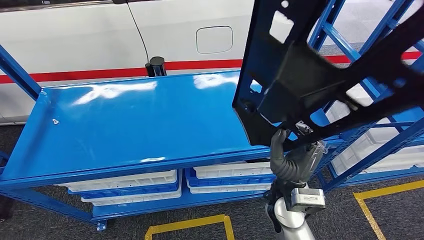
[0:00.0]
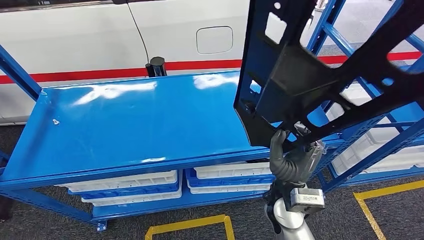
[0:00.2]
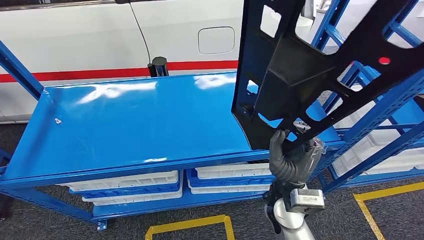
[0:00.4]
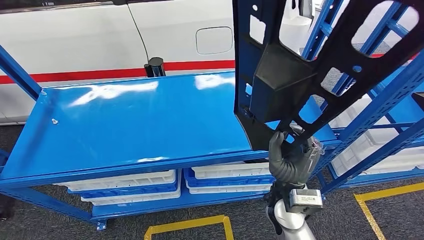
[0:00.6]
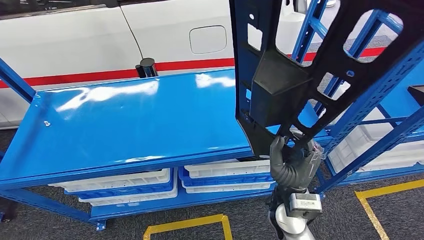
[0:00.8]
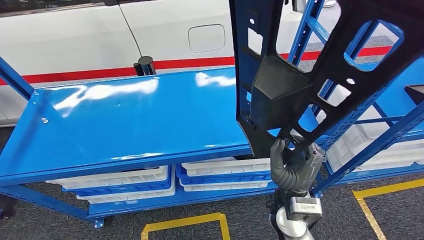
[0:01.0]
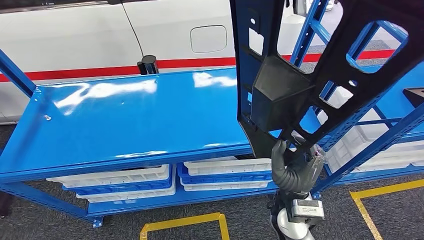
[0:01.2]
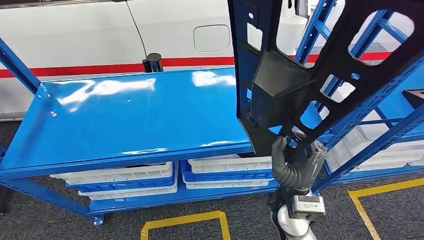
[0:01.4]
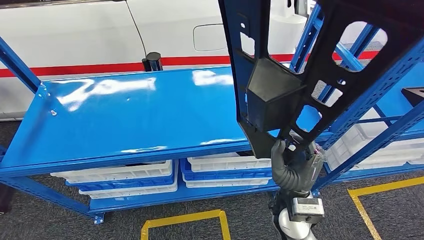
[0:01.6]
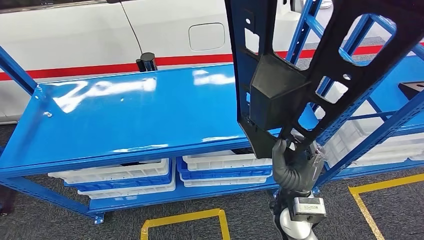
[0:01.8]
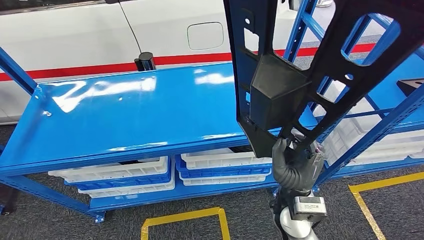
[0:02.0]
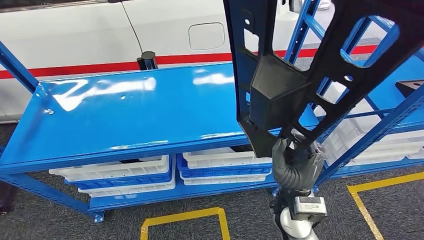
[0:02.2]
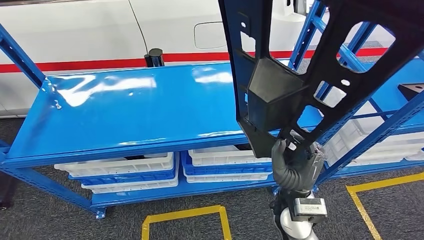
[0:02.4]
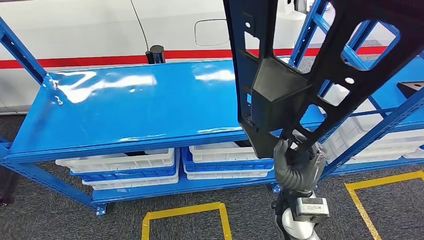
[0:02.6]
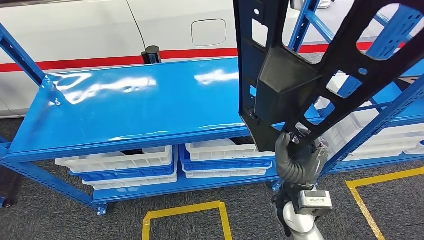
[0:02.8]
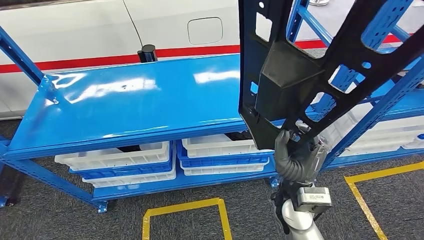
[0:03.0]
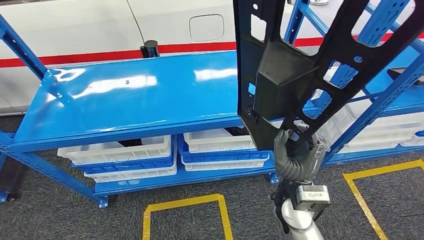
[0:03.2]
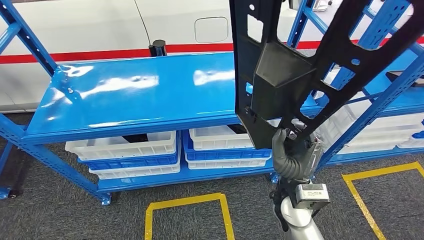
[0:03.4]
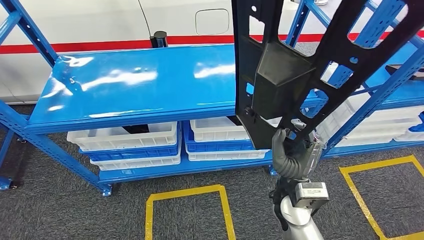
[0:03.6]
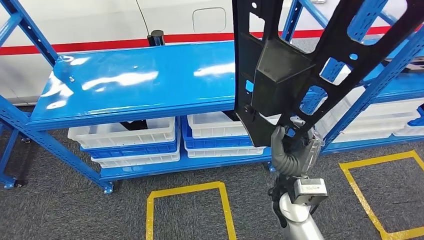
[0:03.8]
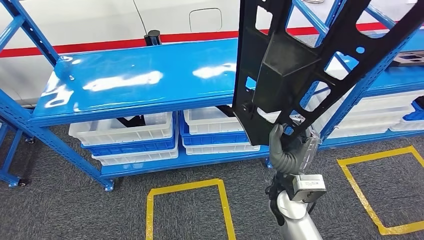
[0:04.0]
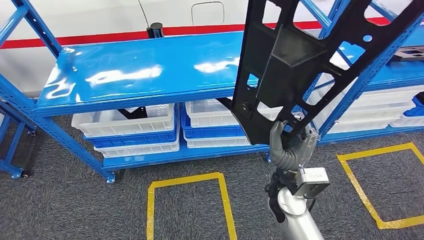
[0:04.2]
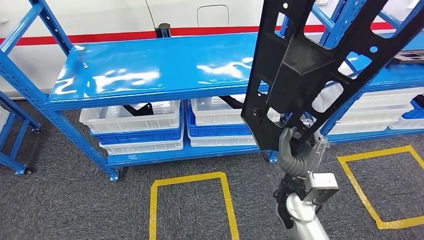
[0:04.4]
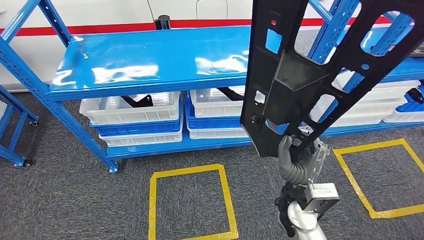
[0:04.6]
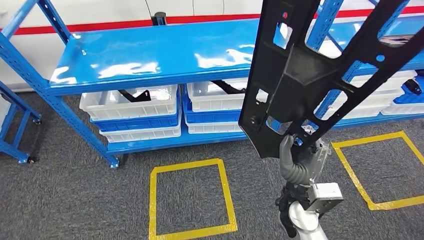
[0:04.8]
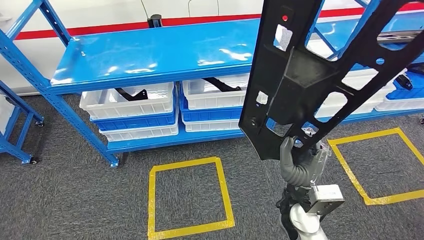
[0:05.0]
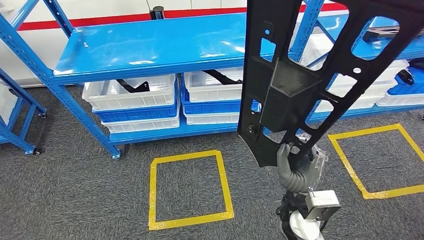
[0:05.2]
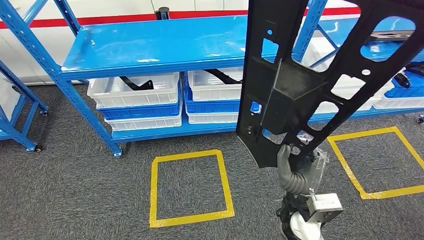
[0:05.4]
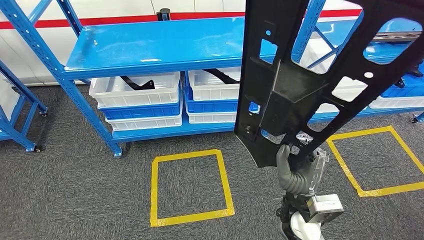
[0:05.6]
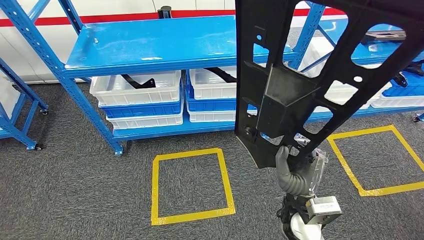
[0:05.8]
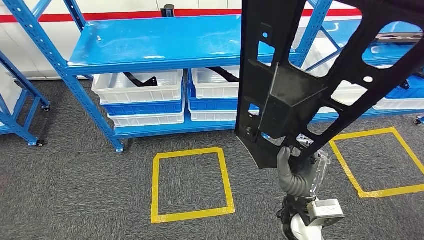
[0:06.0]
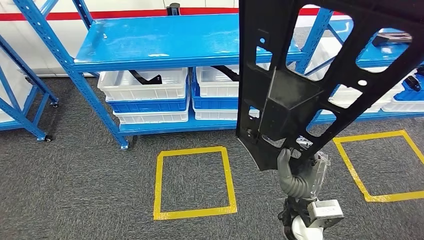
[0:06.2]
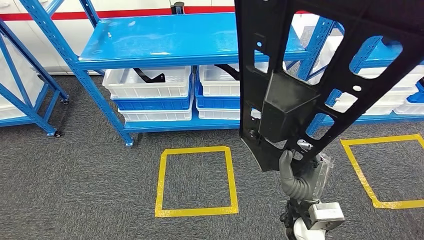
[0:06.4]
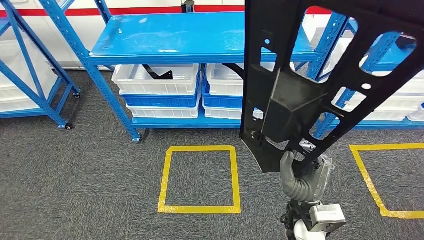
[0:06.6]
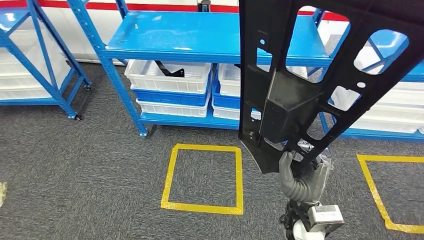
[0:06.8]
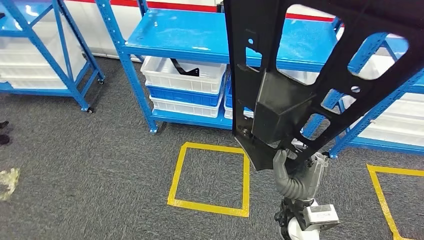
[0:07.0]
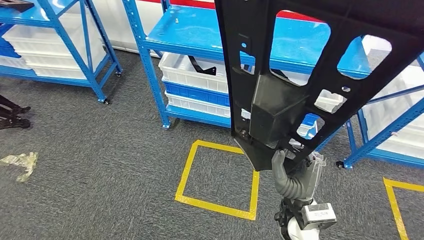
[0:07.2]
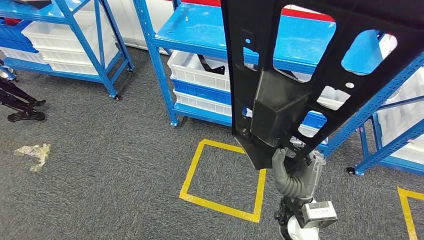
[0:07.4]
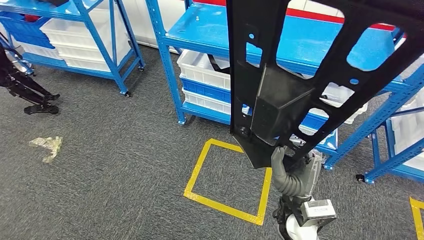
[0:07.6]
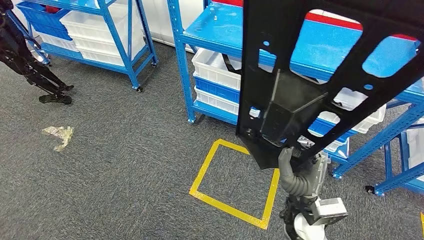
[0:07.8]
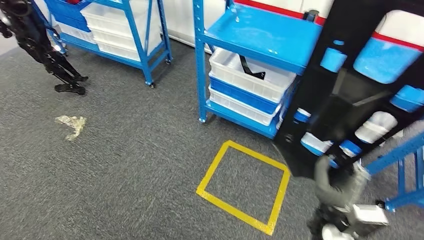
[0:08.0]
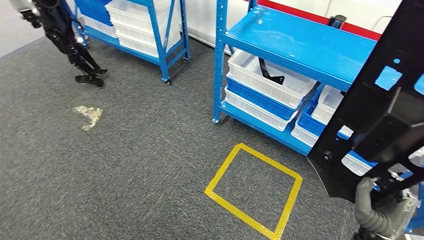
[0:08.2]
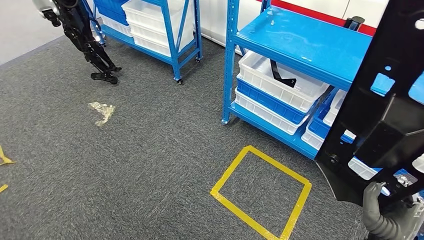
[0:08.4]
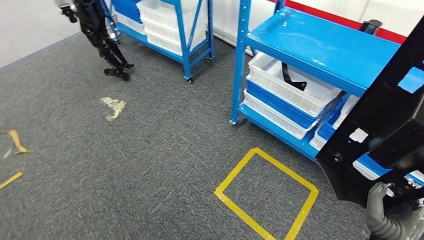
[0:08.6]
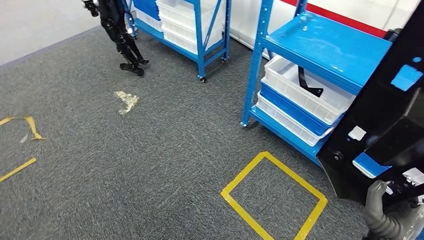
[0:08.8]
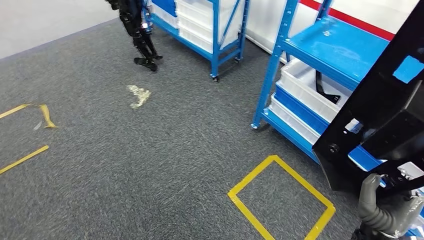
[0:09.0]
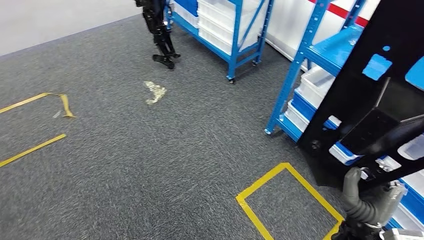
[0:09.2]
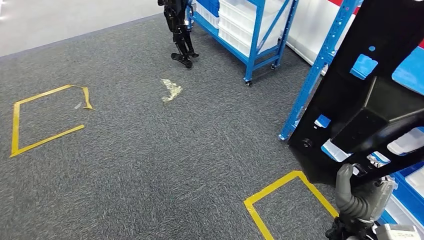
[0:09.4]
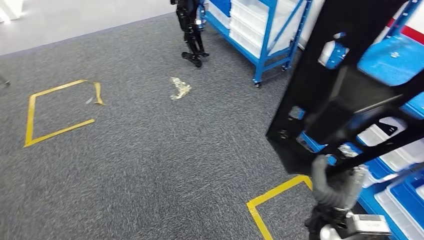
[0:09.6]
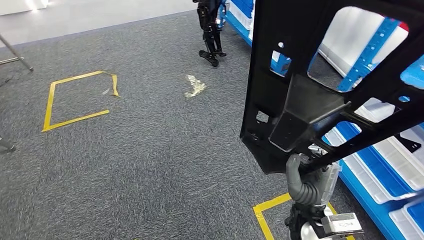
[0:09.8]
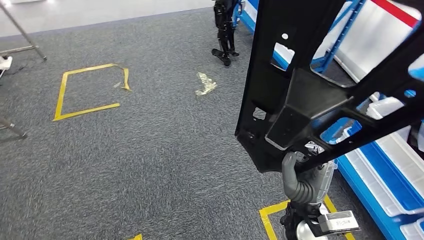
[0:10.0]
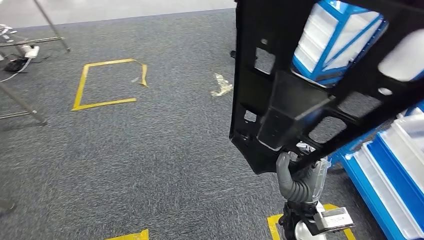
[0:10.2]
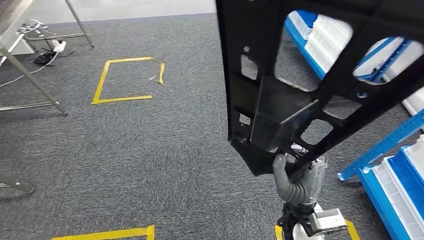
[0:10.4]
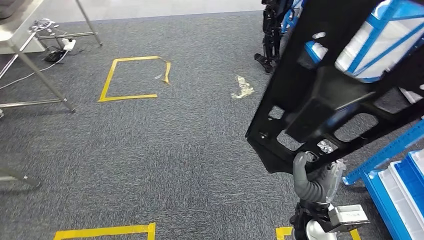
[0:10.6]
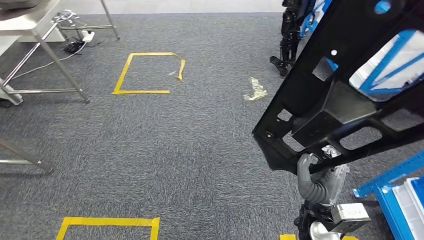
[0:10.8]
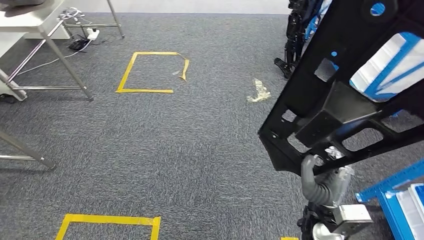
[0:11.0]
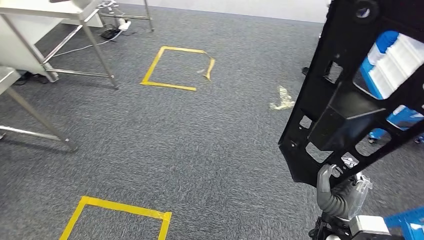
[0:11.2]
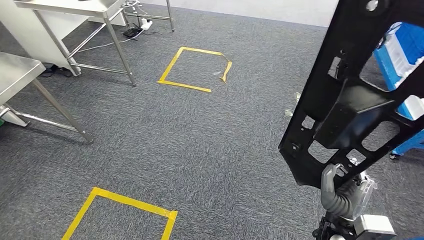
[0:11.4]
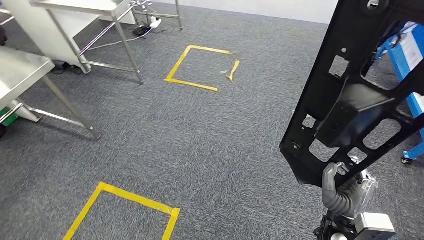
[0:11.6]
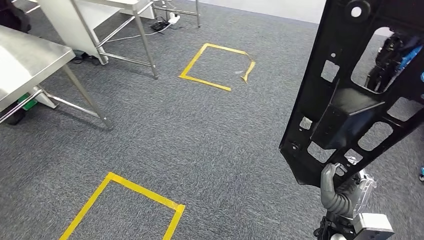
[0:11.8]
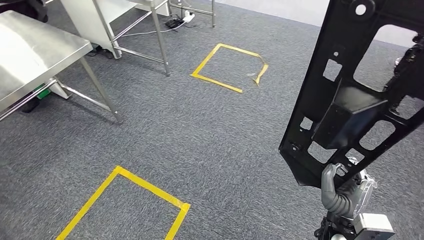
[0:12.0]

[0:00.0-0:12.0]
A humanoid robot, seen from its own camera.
Step, 0:00.0 to 0:02.8: Pick up the large material from the shelf.

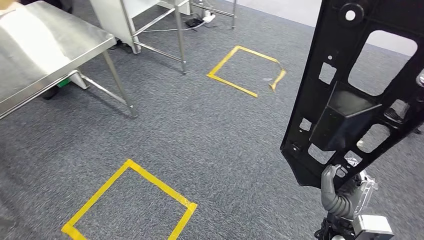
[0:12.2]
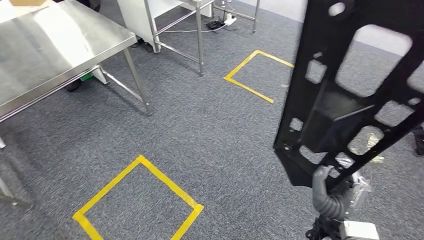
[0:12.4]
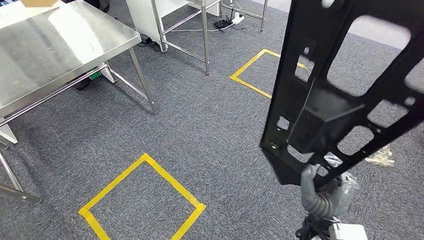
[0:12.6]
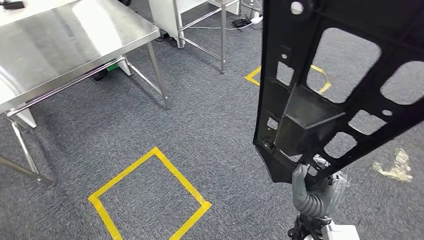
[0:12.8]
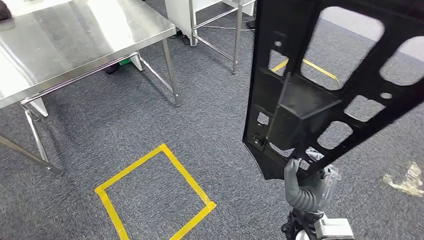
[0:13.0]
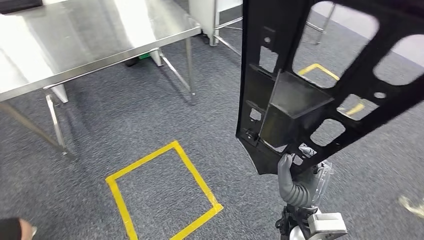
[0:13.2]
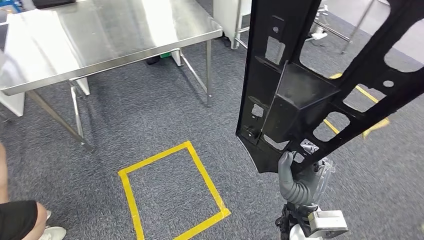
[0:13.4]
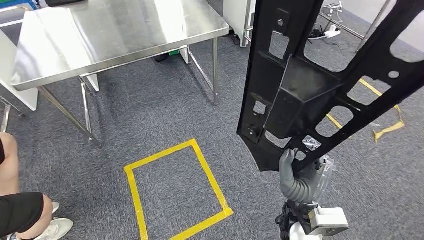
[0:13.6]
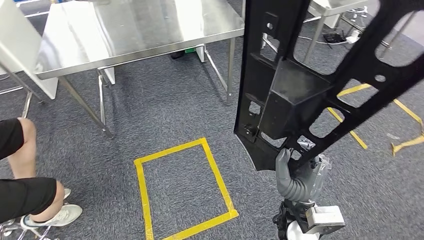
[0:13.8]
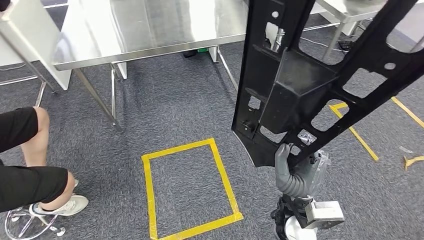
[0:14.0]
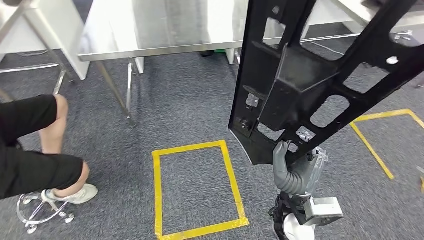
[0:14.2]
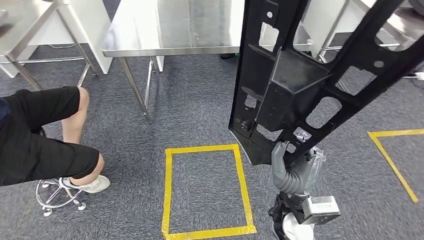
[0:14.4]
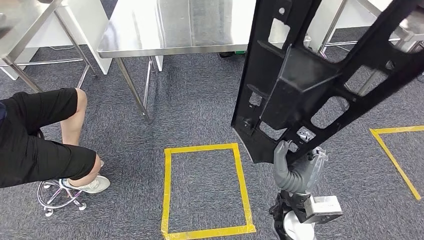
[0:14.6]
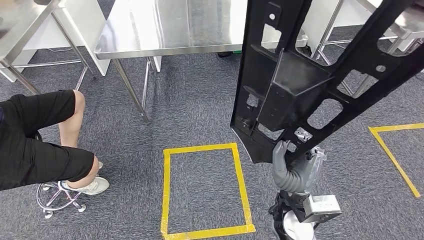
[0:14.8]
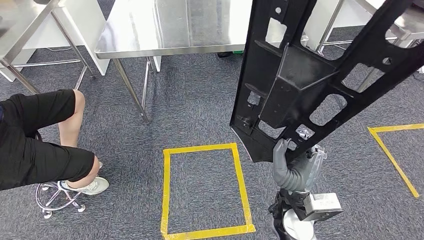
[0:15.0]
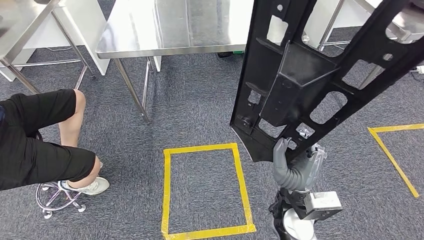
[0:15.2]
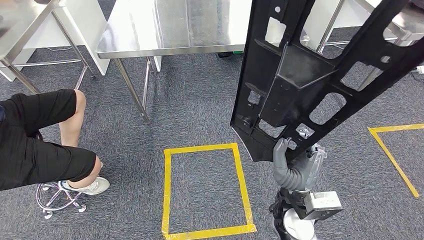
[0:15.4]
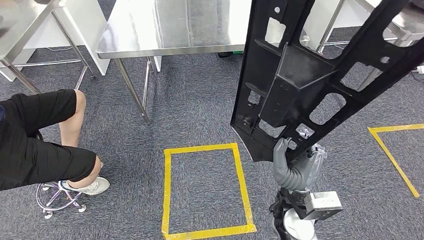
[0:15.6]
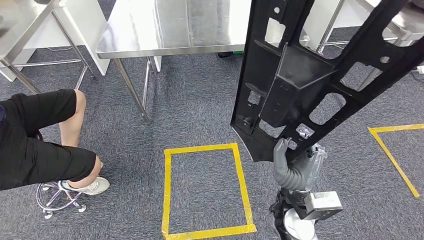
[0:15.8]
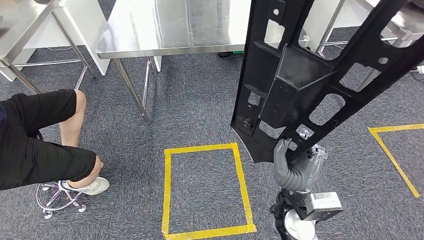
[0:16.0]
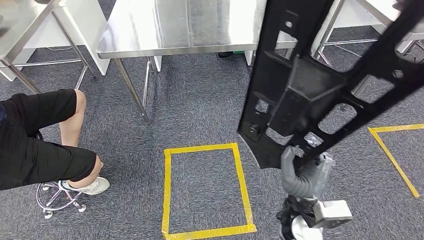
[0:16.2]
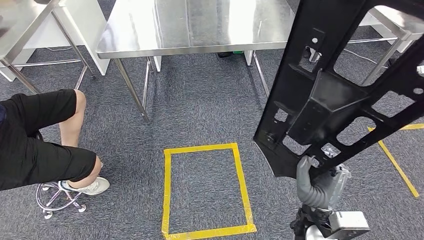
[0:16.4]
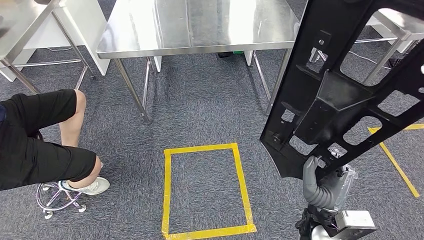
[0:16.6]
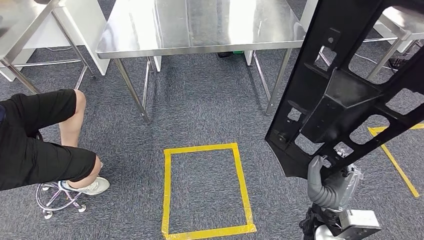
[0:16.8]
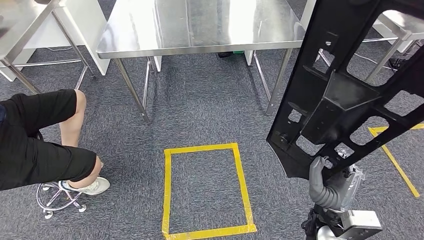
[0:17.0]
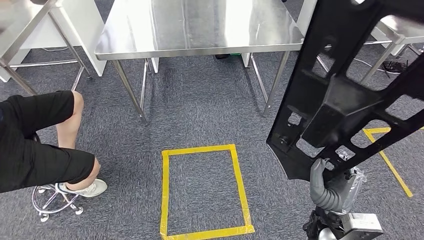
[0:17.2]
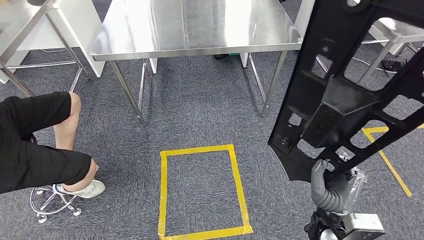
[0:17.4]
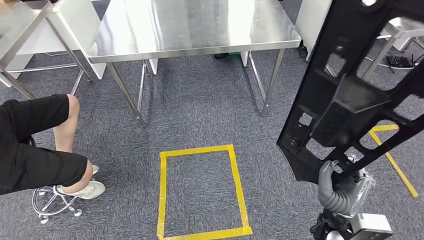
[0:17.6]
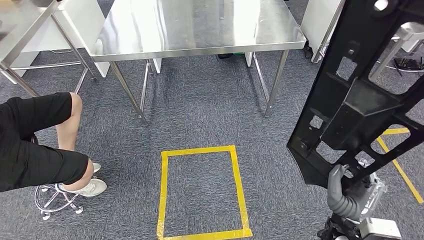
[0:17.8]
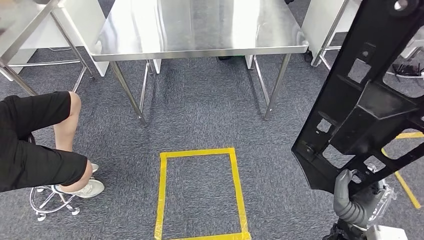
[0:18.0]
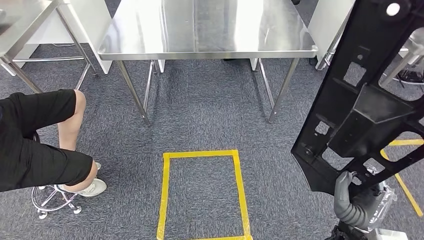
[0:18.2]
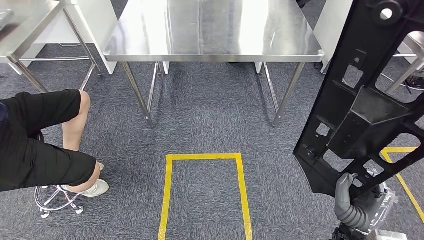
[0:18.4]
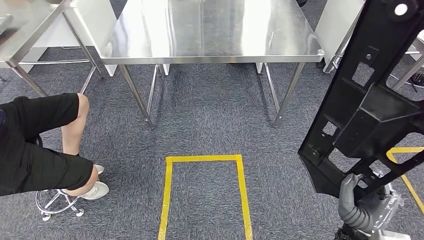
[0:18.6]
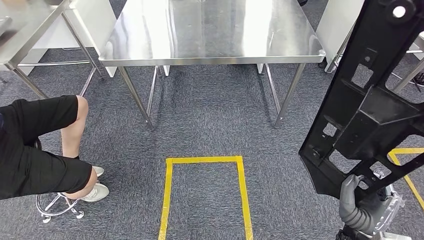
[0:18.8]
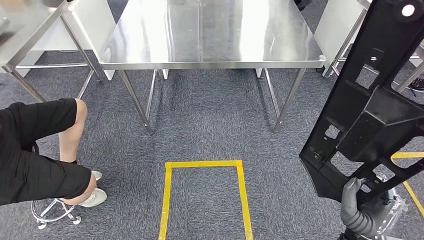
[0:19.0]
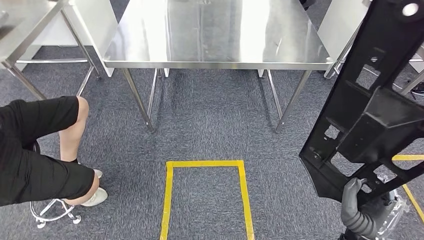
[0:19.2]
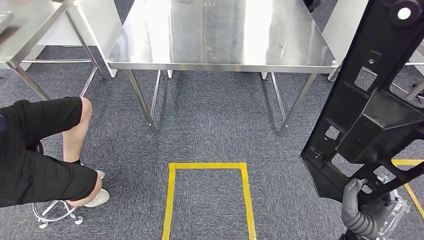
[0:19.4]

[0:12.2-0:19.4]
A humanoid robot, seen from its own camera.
Step, 0:12.2 to 0:18.0: Move the large material to the workbench.
